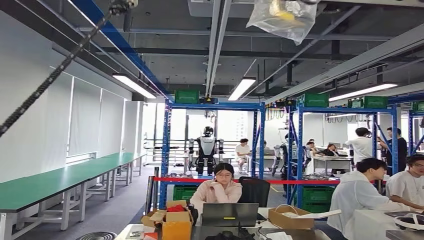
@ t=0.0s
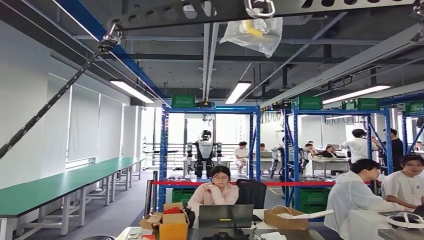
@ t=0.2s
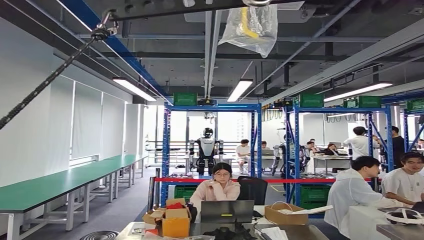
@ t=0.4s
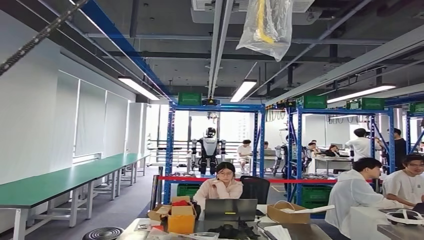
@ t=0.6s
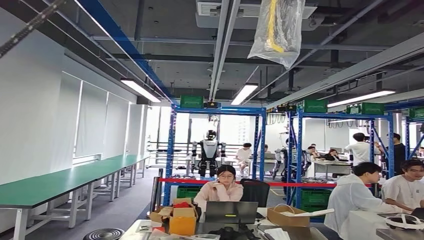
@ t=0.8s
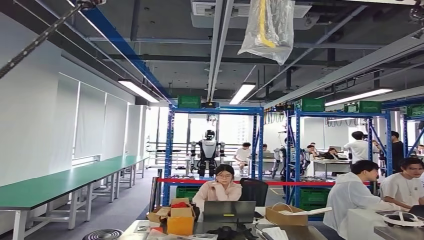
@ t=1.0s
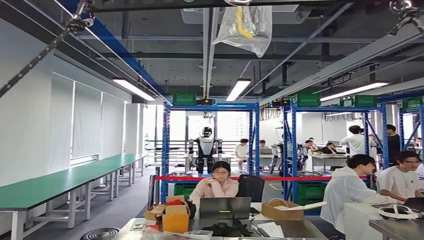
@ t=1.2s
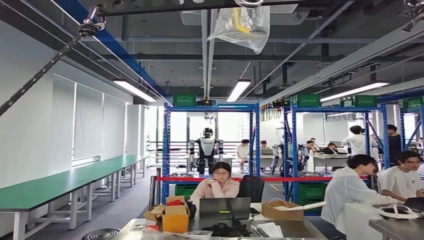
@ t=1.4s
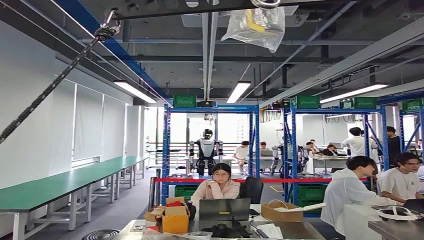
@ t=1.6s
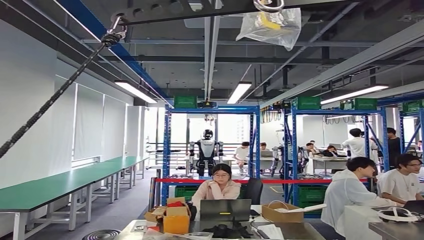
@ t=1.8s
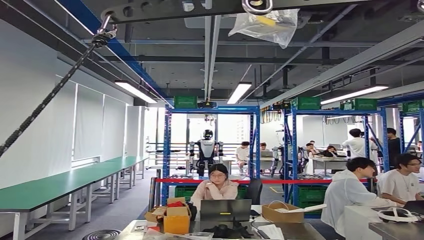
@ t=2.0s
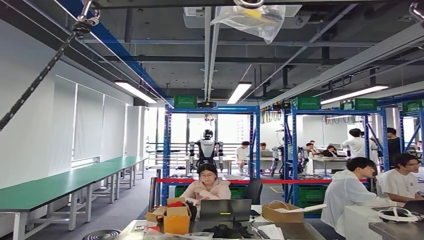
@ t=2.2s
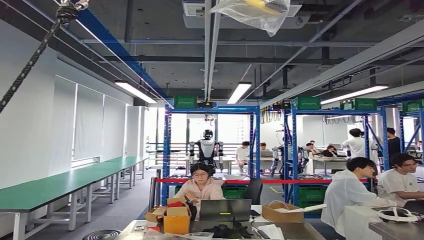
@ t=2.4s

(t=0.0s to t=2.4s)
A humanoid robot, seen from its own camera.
Step, t=0.0s - t=2.4s: Return to the initial position at the workbench.
